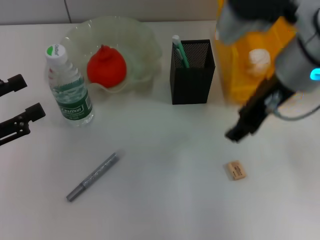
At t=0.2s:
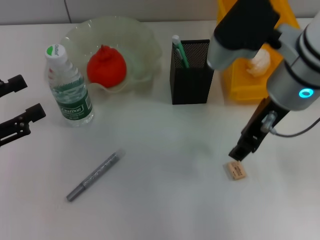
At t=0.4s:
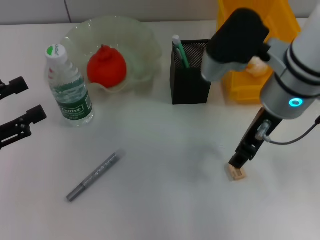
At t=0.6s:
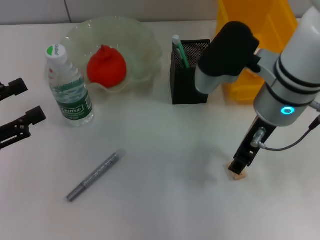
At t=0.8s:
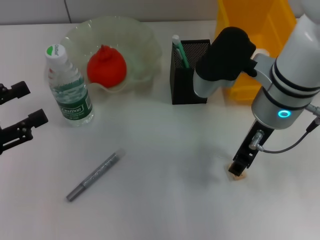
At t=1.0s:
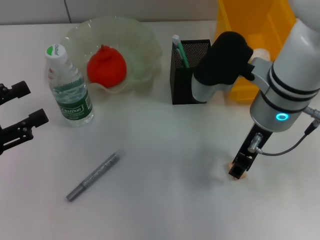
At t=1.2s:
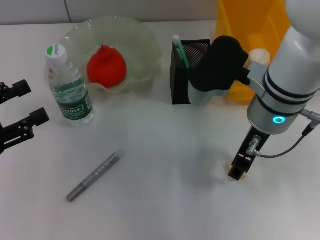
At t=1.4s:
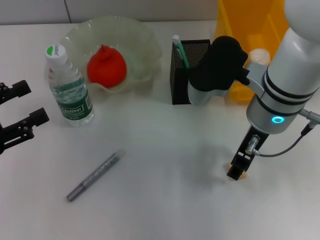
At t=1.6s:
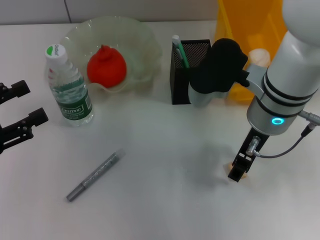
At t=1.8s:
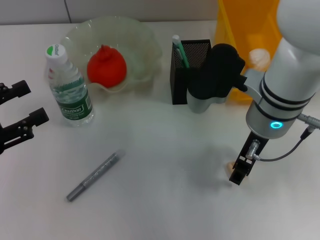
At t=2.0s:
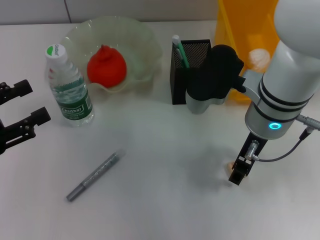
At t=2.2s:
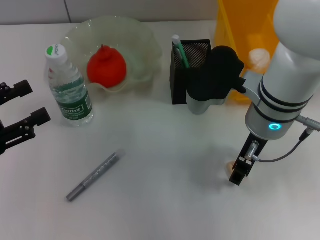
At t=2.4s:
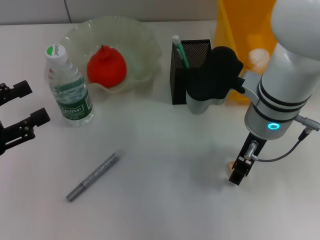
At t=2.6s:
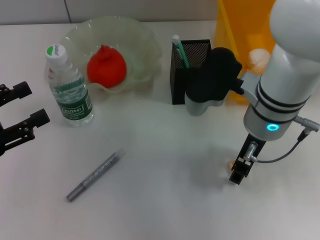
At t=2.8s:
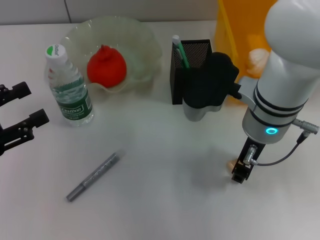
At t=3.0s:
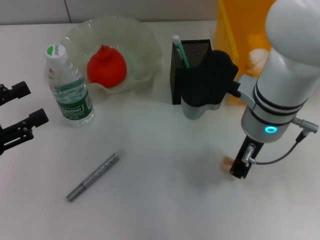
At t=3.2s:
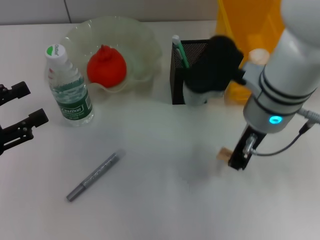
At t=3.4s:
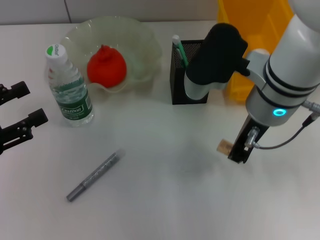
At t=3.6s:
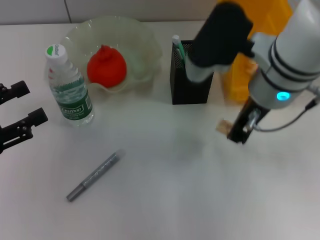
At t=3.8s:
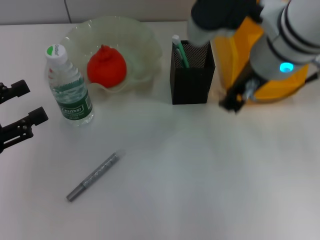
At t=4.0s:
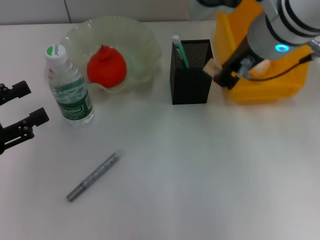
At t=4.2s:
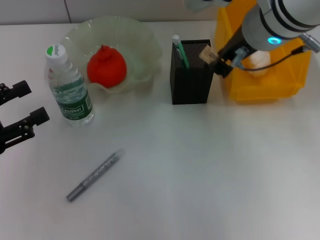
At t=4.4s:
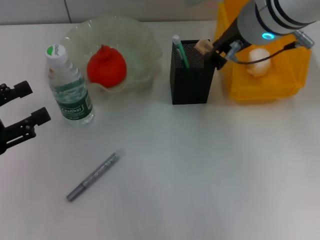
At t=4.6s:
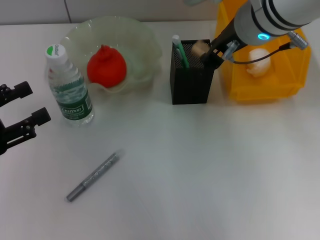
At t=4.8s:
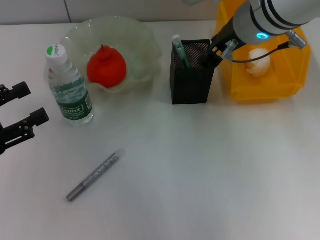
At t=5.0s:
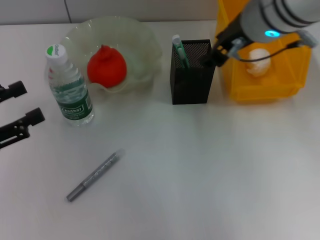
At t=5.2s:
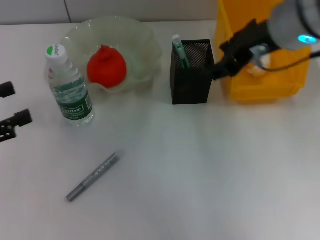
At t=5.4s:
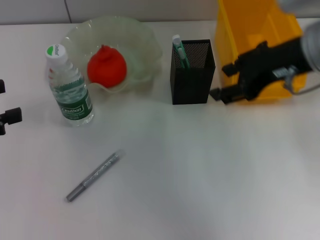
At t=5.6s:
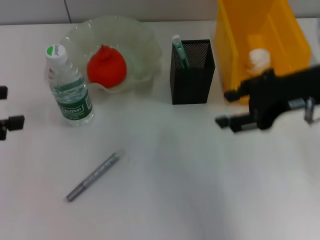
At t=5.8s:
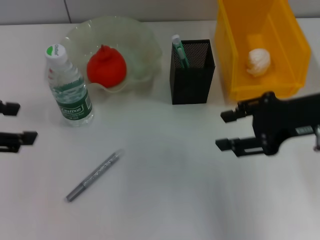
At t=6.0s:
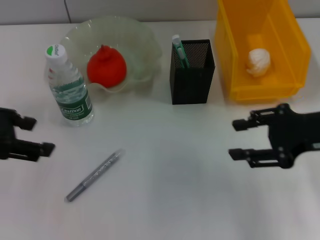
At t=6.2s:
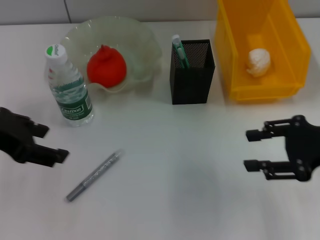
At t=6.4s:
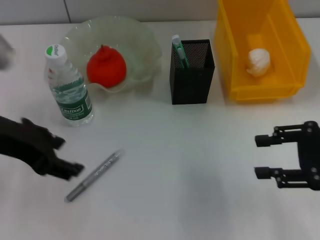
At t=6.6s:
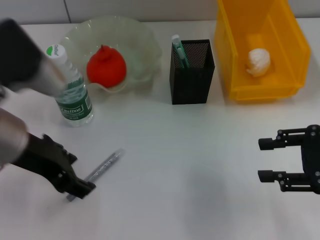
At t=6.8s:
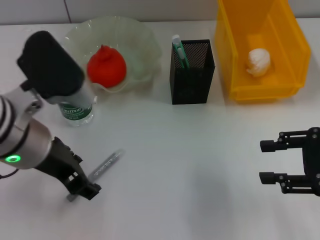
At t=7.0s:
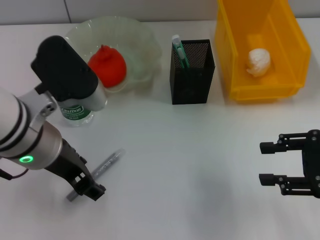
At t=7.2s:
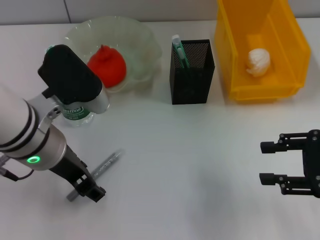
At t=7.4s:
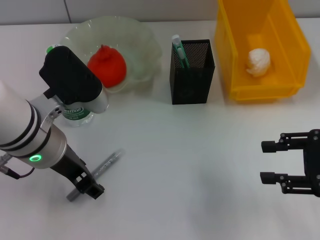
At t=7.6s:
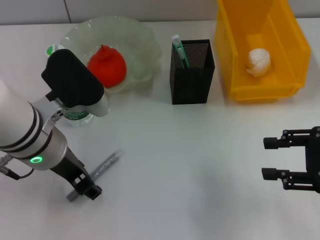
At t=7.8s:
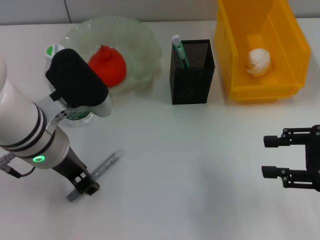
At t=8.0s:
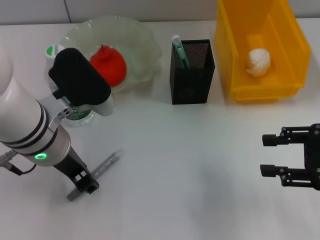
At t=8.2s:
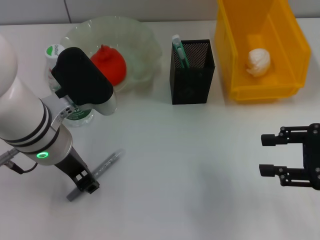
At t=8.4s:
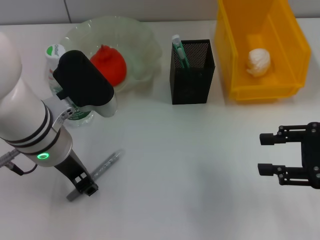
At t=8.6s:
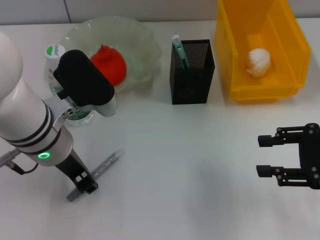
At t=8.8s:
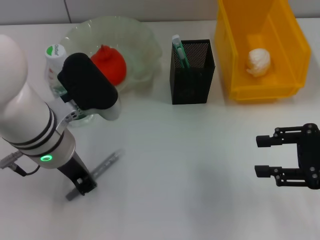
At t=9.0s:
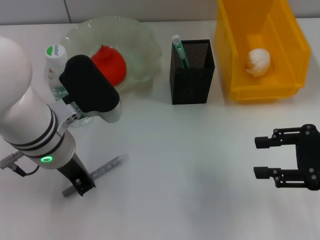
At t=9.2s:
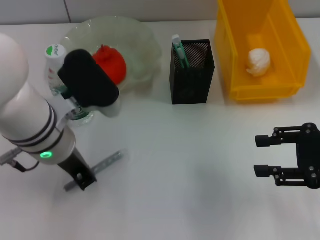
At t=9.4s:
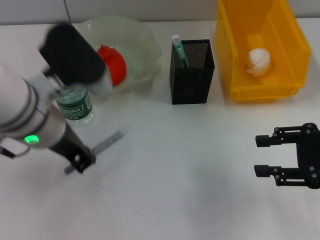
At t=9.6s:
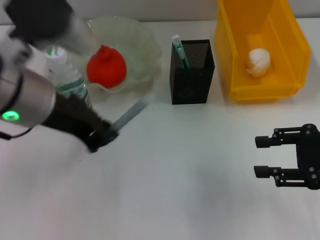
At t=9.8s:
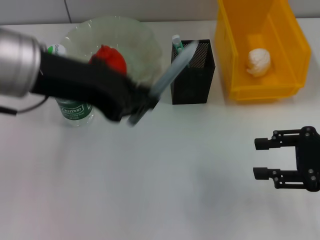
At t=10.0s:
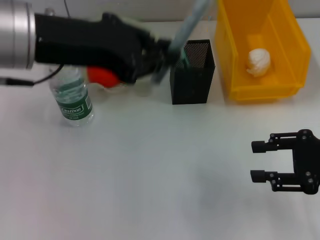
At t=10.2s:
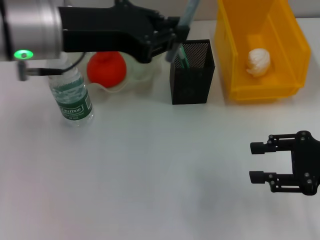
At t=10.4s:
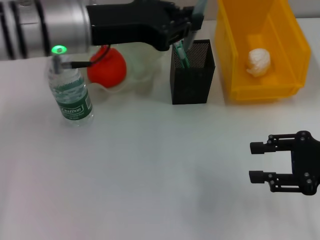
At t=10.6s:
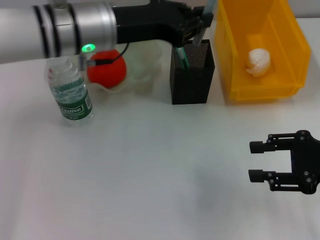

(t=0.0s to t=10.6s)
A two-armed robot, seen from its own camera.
Step, t=0.0s - t=3.0s: Grab the eraser with the right hand.
Step, t=3.2s - t=5.2s: Put the eraser into the pen holder with the right hand.
Step, t=5.4s - t=9.0s: Grab the gray glue with the right hand.
t=0.0s - t=1.6s: The right gripper heads downward, covering about 10 cm.
t=1.6s - t=3.0s: The grippers stay close to where they were, moving slightly.
t=3.0s - t=4.6s: The right gripper heads upward and forward, covering approximately 10 cm.
t=4.6s - t=6.0s: The left gripper moves upward and to the right, approximately 10 cm; the right gripper is displaced to the right, backward and downward by roughly 20 cm, and opens up.
t=6.0s - t=7.6s: The right gripper moves to the right, about 5 cm. Meanwhile the left gripper shifts about 15 cm to the right and downward.
t=7.6s - t=9.0s: The left gripper closes its fingers.
t=9.0s - t=10.6s: The left gripper shifts approximately 10 cm forward and upward.

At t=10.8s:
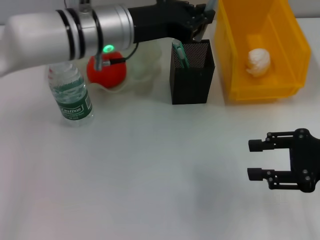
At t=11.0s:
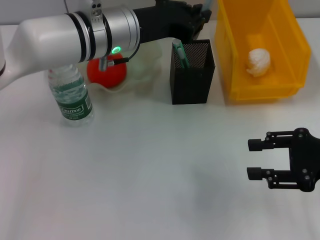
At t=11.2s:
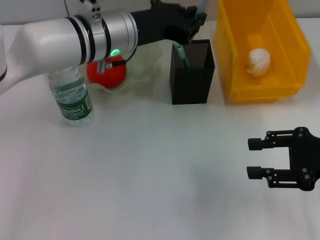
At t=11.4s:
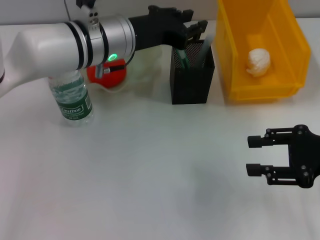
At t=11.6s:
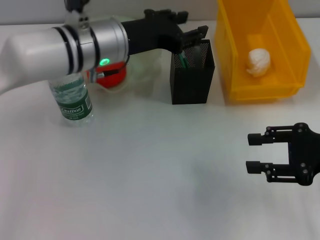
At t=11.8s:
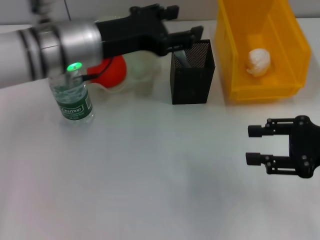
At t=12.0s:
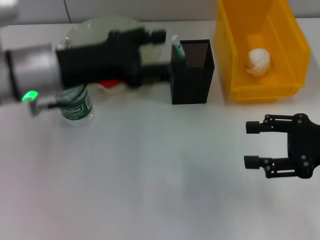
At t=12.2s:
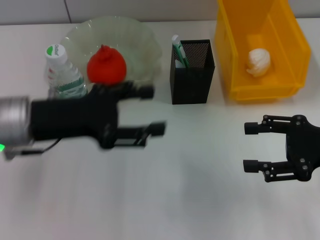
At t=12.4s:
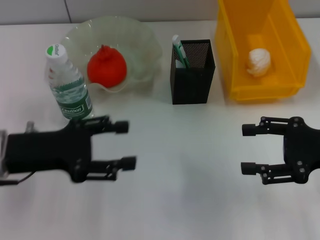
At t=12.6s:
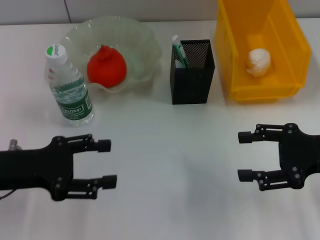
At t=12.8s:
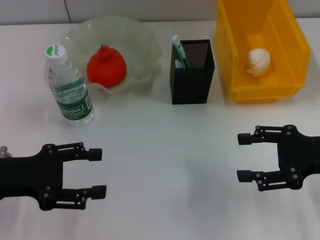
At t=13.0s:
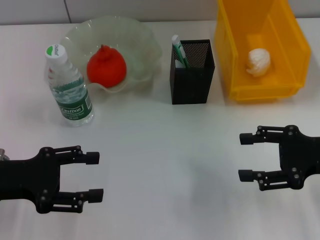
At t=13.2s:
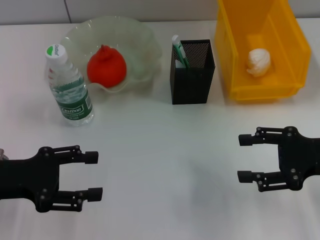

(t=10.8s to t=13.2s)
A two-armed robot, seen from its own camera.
t=10.8s - t=12.0s: The left gripper travels to the left and backward by roughly 10 cm, and opens up.
t=12.0s - t=13.2s: The left gripper heads to the left, backward and downward, covering roughly 15 cm.
